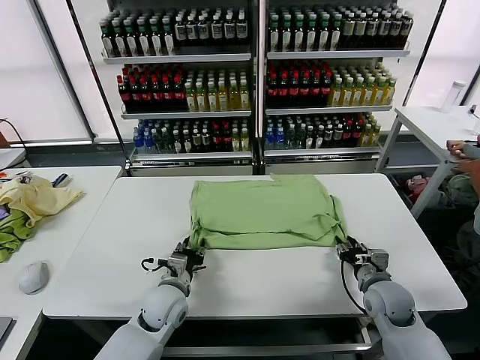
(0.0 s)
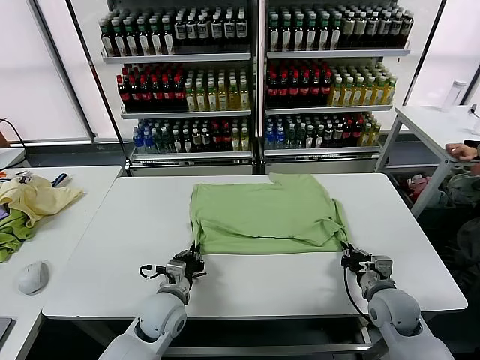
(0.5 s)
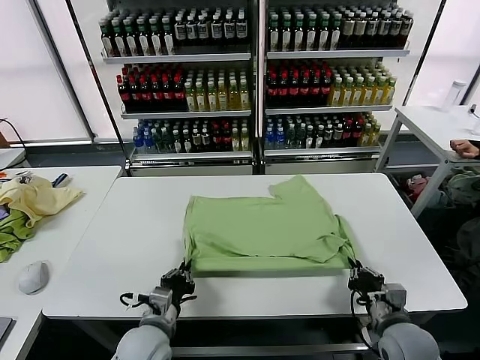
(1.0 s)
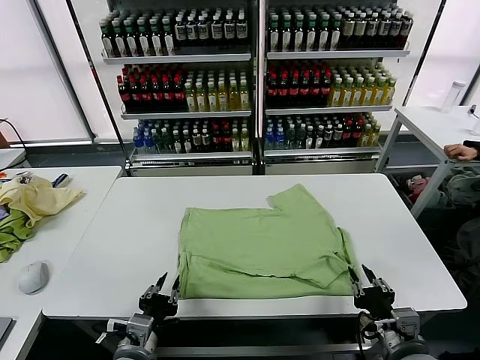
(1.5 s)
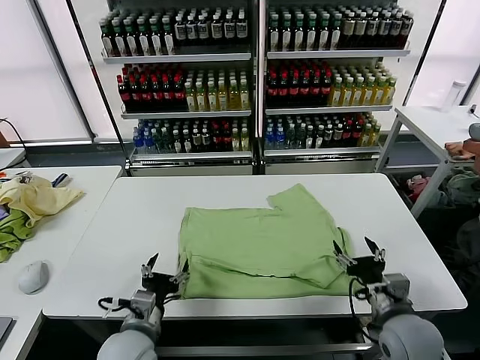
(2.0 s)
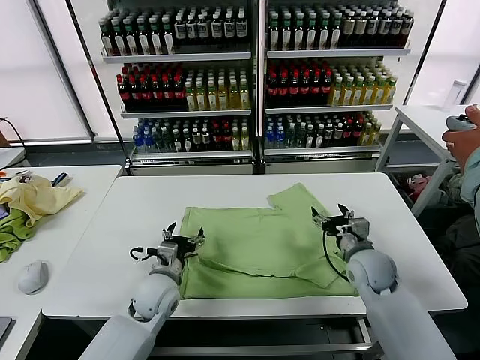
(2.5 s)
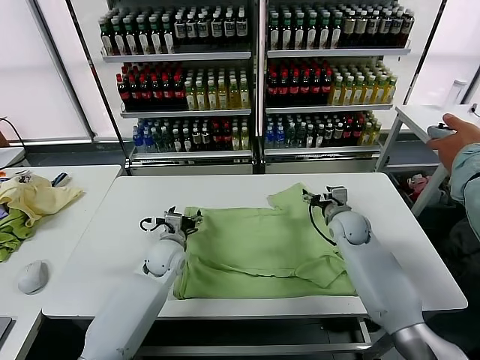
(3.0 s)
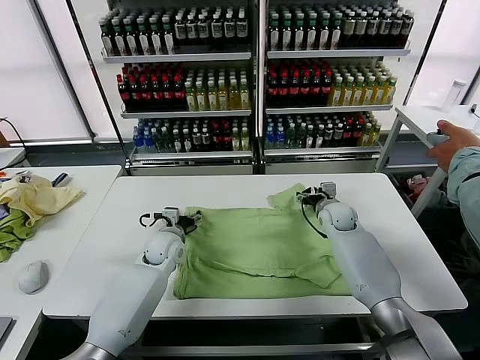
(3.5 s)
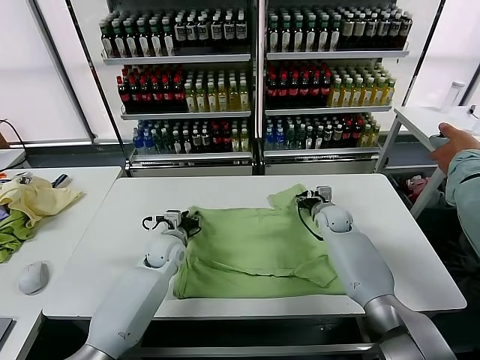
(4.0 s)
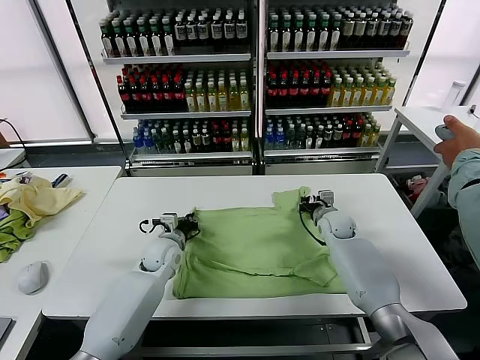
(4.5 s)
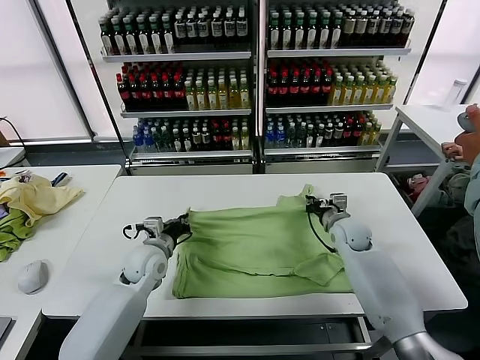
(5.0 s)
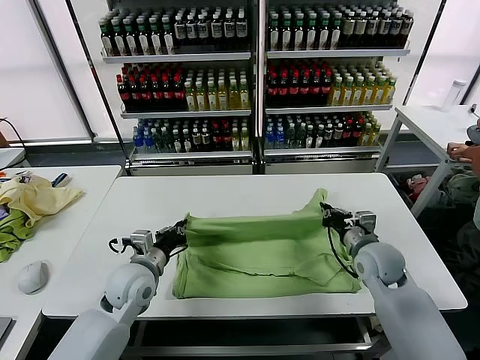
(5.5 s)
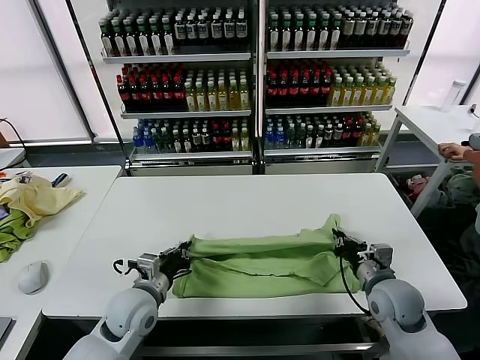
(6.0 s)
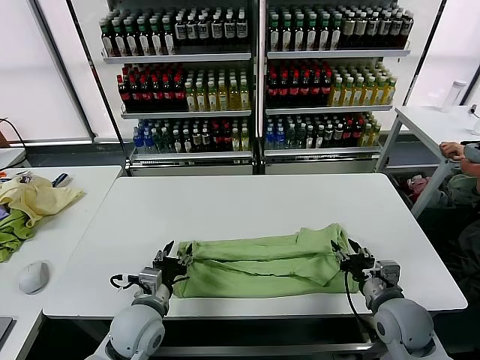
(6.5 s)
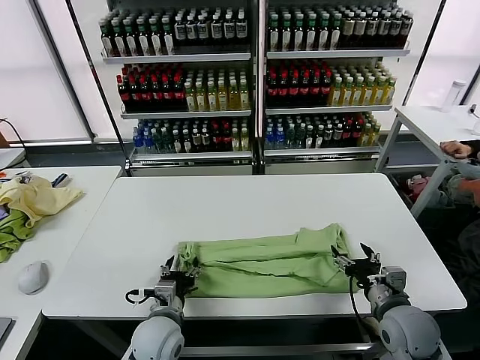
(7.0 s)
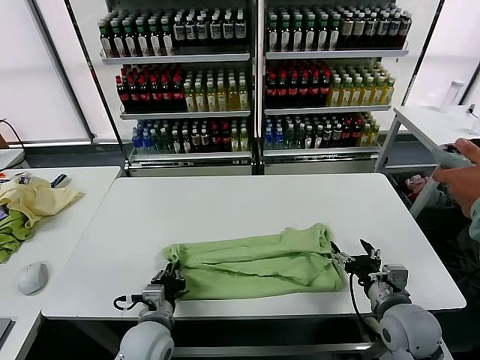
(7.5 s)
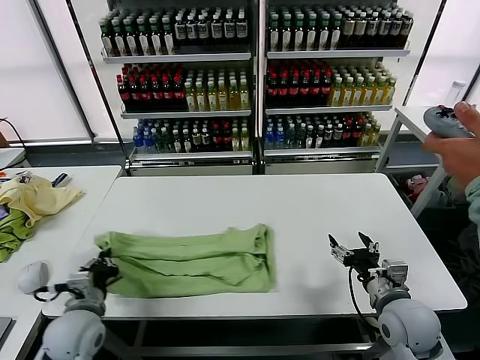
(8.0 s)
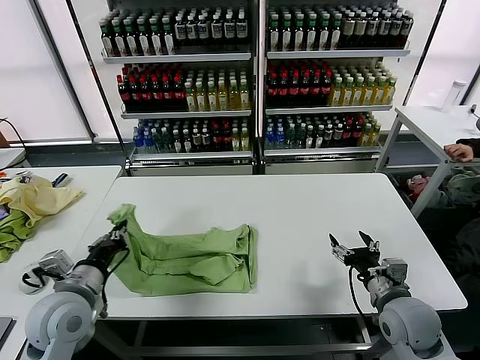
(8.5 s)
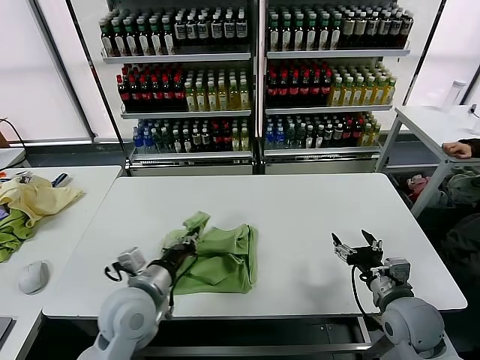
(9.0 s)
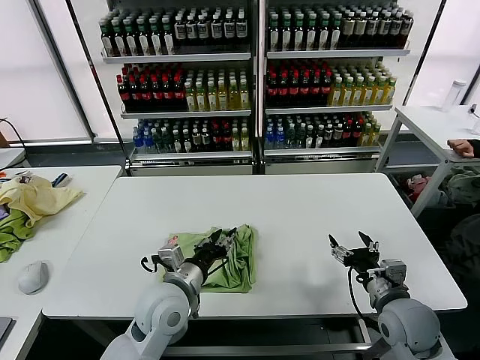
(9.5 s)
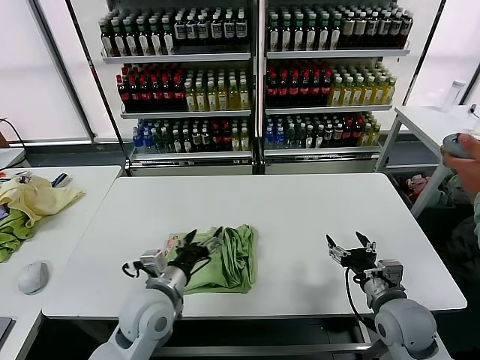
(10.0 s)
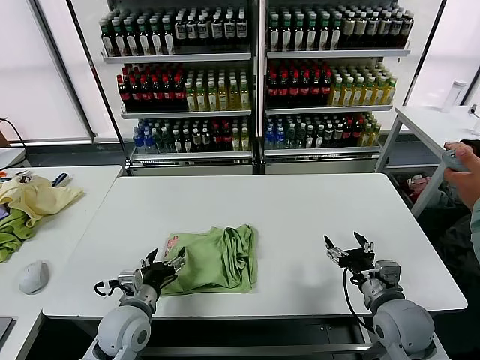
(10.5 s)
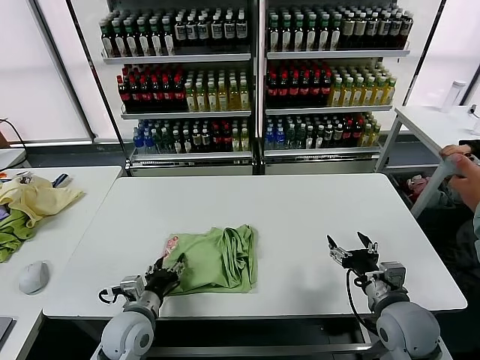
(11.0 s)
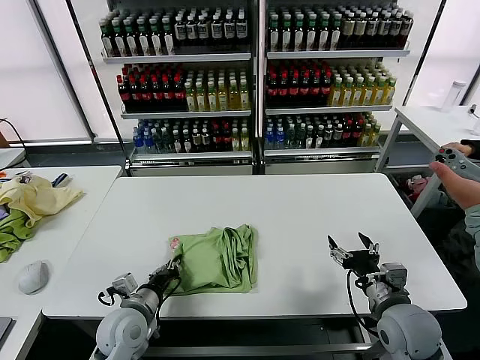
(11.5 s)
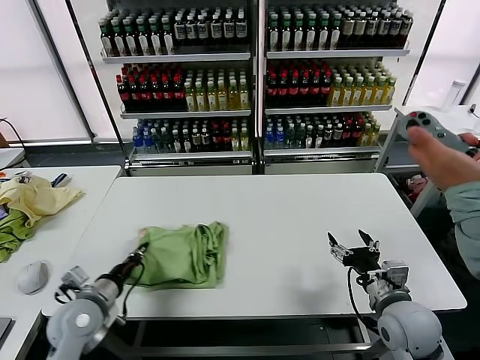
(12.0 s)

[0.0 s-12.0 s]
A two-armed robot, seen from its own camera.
Task of the whole recording: fold and organize the clothes.
Step, 0.0 to 1.5 s: Drag the clothes downward with both gripper.
Step, 2.0 to 4.5 s: use both grippers simultaneously to clamp the upper edge of the clothing fabric.
Step, 5.0 to 6.0 s: use both grippers to drag the upper edge of the fabric backward and fold it over the lower edge.
Step, 7.0 to 7.5 s: use the left gripper to clamp the left edge of the fabric.
Step, 8.0 to 9.5 s: use the left gripper to drag the left edge of the fabric to the left and folds it over the right edge.
0.0 to 2.0 s: The right gripper goes about 10 cm upward and backward, and opens its fingers. The left gripper heads backward, covering approximately 10 cm, and opens.
2.0 to 4.0 s: The two grippers go about 25 cm forward. The right gripper closes up. The left gripper closes its fingers.
4.0 to 6.0 s: The right gripper goes some 25 cm backward, and closes its fingers; the left gripper travels backward by some 15 cm.
6.0 to 8.0 s: The left gripper goes approximately 10 cm to the left, and opens and closes again, while the right gripper opens.
8.0 to 10.0 s: The left gripper is displaced to the right by roughly 15 cm, and opens its fingers.
10.0 to 12.0 s: The left gripper heads to the left, covering approximately 15 cm, and closes its fingers.

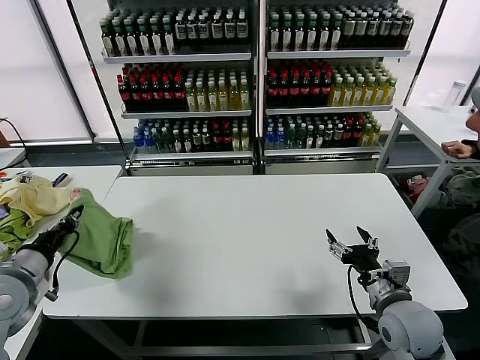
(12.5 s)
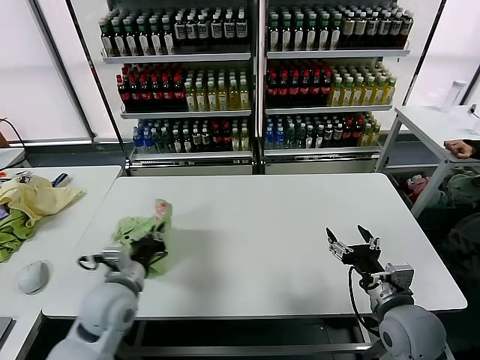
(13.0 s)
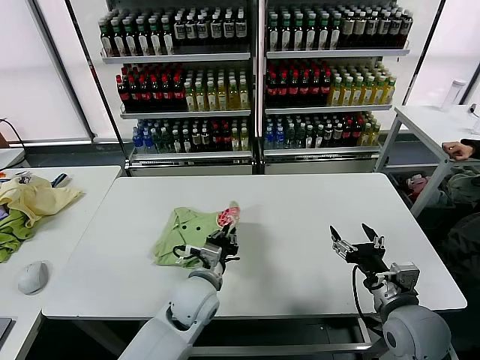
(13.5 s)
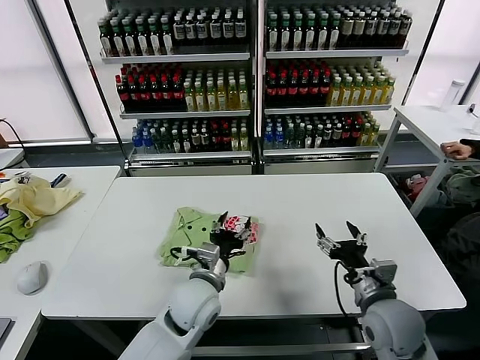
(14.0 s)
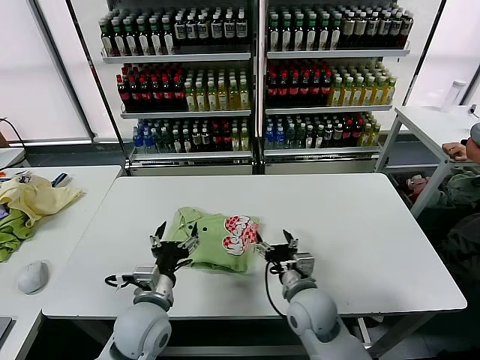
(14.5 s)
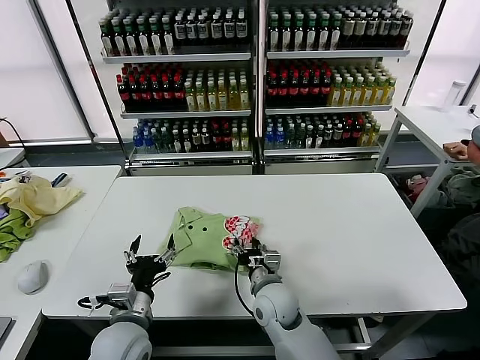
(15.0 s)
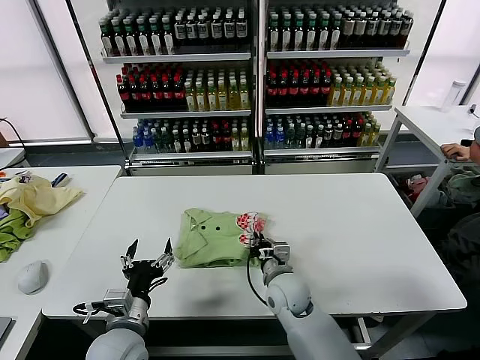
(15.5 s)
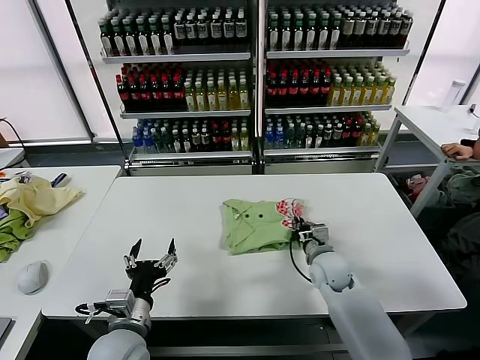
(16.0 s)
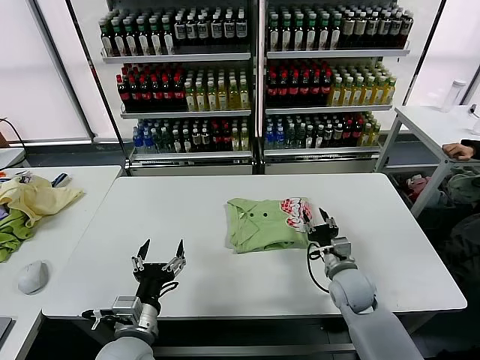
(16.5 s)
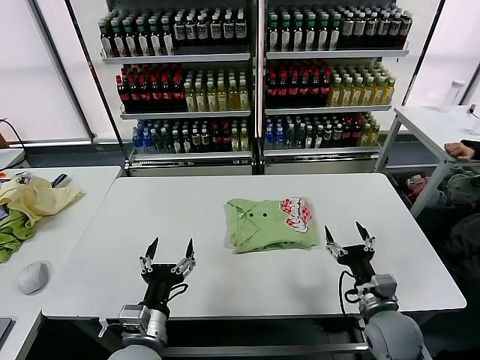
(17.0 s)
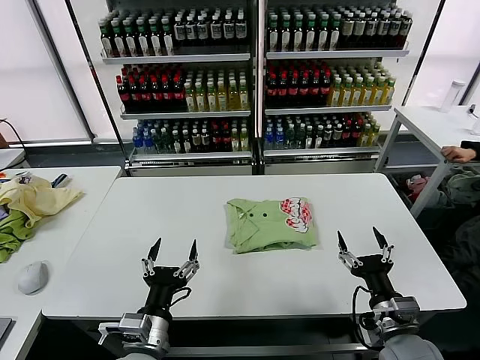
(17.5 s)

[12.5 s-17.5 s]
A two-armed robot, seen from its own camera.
Task of the whole recording: fold and organize the clothes.
Step, 14.0 to 16.5 s: Drag the clothes to the center of the table.
12.5 to 15.0 s: The left gripper goes about 25 cm to the right and downward, and opens up; the right gripper moves to the left, approximately 25 cm.
15.0 to 17.5 s: The left gripper goes about 5 cm backward; the right gripper heads to the right and backward, covering some 25 cm, and closes, then opens again.
